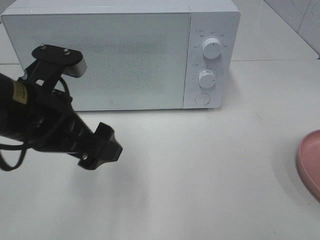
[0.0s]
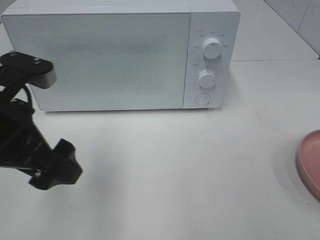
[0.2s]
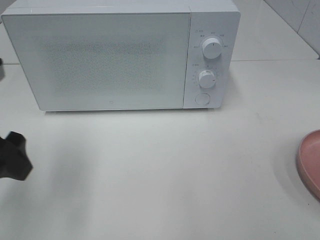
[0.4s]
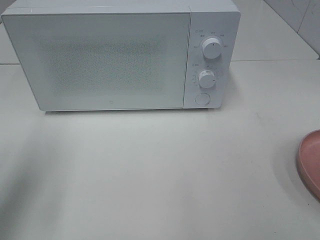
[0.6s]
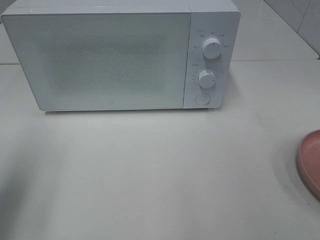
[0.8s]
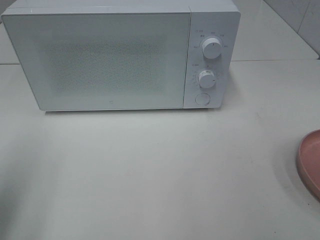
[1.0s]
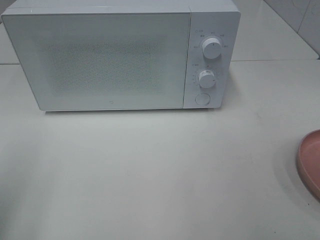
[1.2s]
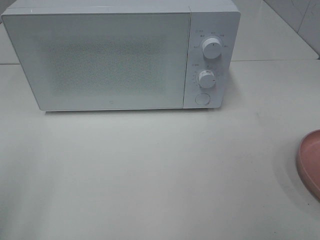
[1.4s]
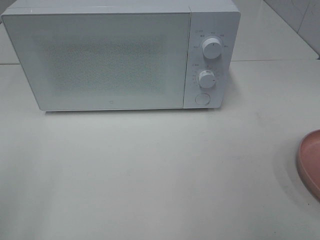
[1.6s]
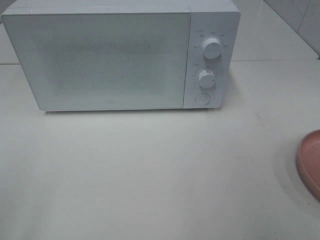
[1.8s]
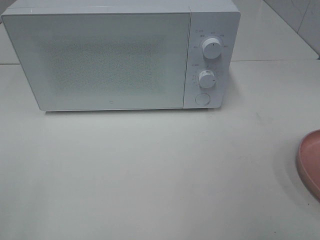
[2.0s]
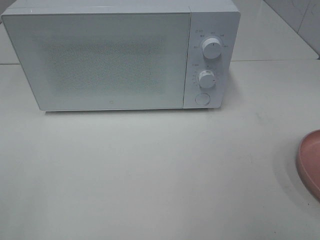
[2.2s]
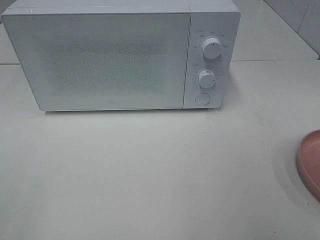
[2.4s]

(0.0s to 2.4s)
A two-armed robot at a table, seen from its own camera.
Task of the whole recording: Heat the burger.
0.0s - 1.2s: The left gripper shifts roughly 20 cm to the left and backward.

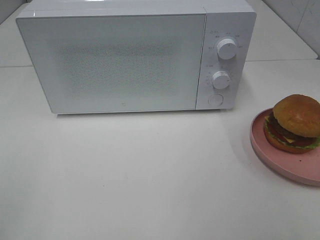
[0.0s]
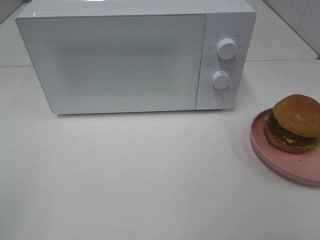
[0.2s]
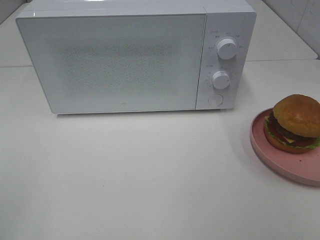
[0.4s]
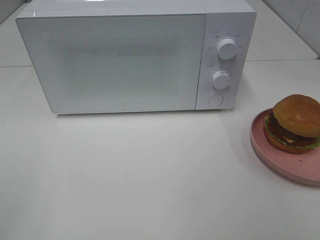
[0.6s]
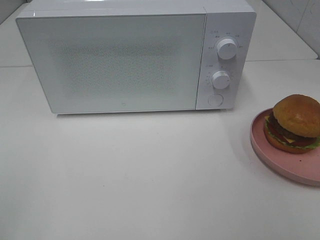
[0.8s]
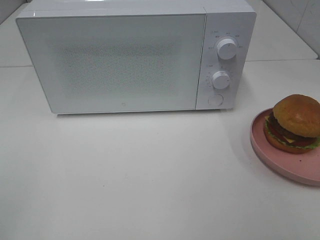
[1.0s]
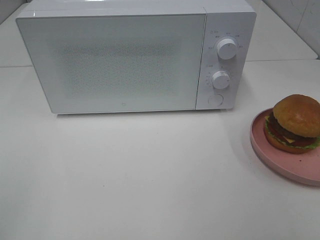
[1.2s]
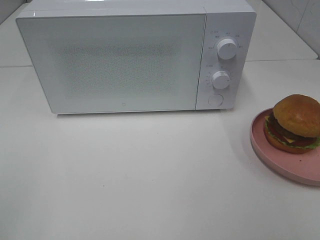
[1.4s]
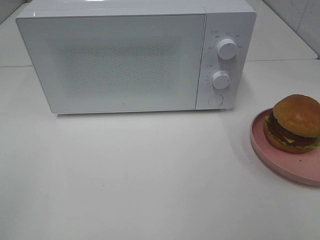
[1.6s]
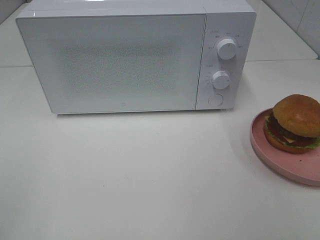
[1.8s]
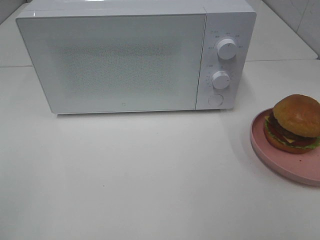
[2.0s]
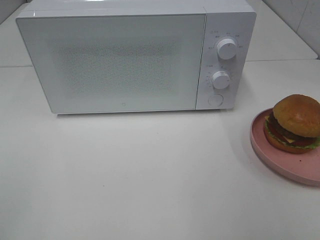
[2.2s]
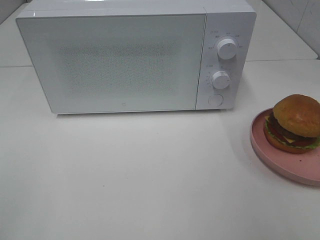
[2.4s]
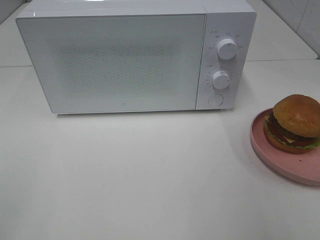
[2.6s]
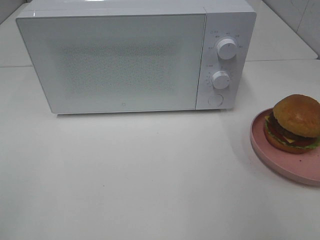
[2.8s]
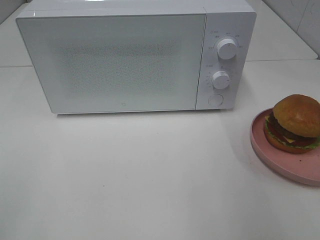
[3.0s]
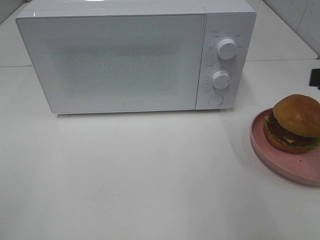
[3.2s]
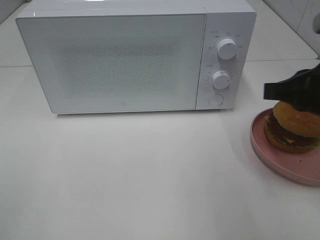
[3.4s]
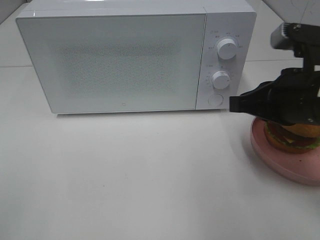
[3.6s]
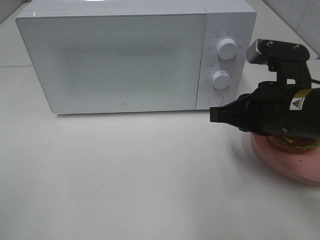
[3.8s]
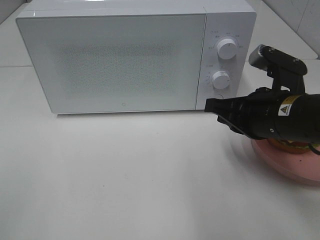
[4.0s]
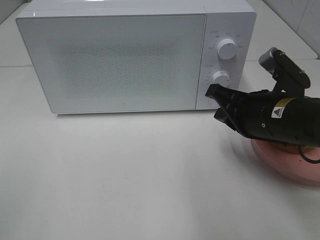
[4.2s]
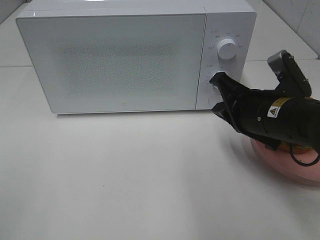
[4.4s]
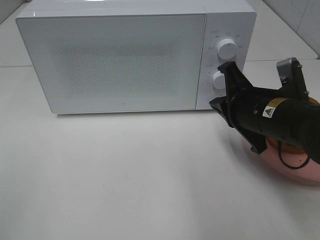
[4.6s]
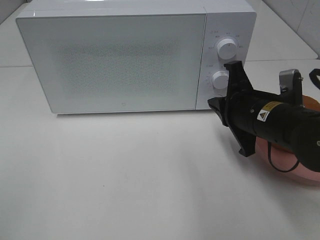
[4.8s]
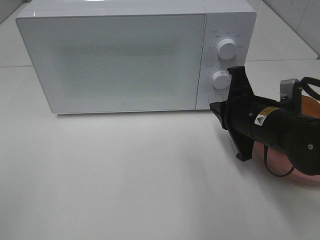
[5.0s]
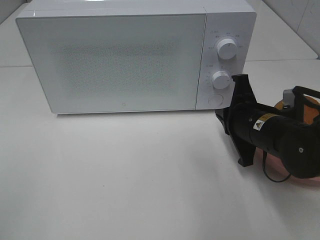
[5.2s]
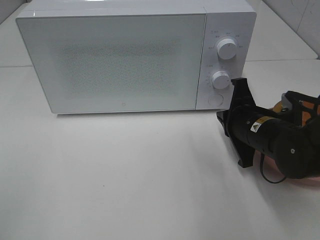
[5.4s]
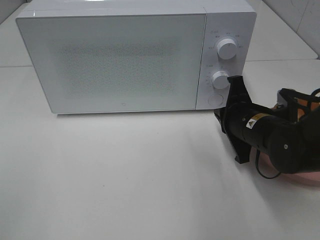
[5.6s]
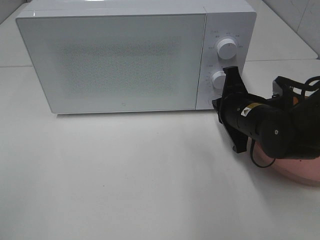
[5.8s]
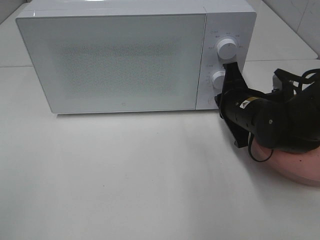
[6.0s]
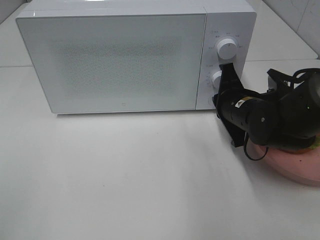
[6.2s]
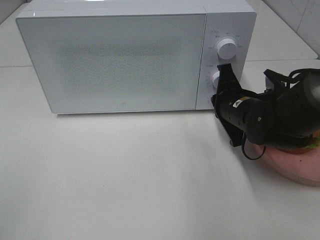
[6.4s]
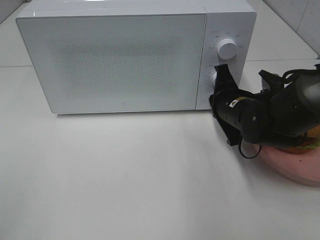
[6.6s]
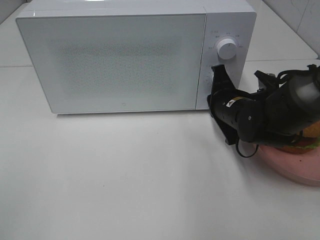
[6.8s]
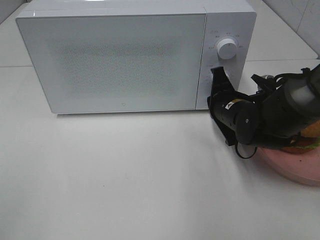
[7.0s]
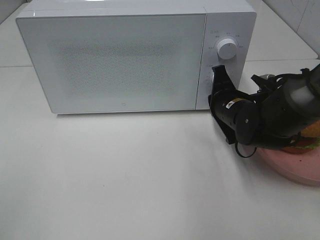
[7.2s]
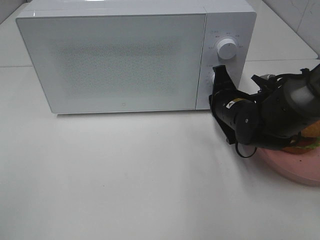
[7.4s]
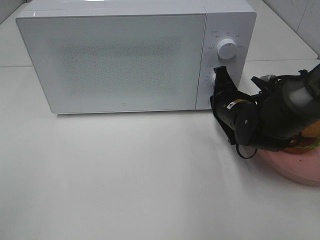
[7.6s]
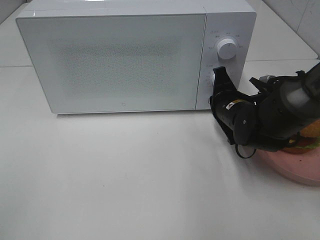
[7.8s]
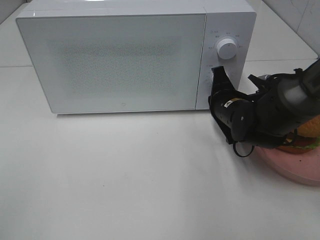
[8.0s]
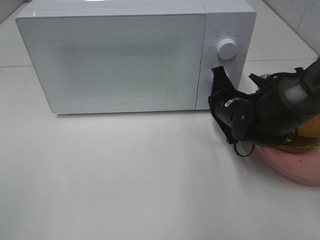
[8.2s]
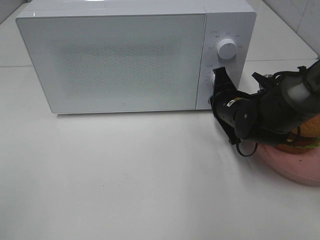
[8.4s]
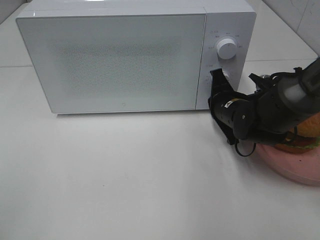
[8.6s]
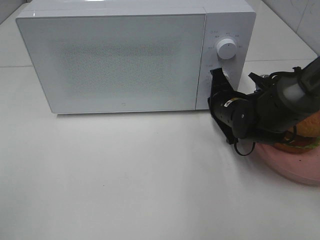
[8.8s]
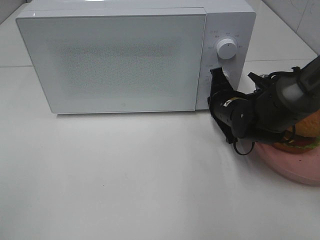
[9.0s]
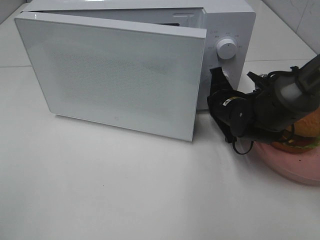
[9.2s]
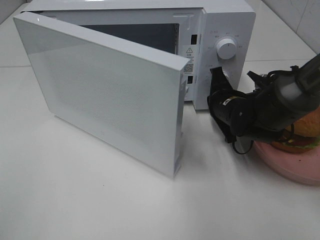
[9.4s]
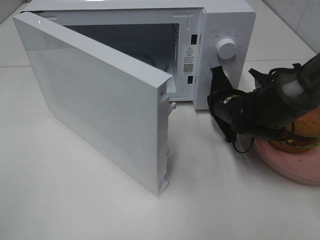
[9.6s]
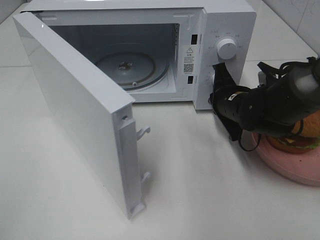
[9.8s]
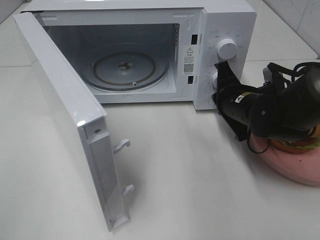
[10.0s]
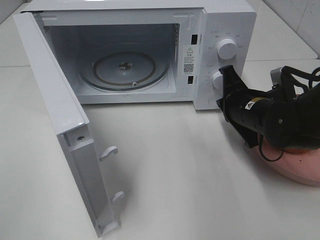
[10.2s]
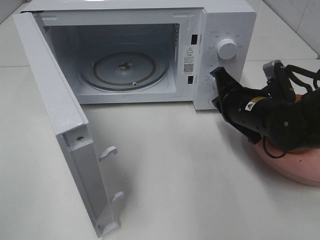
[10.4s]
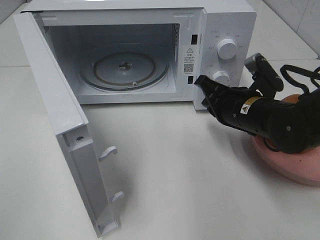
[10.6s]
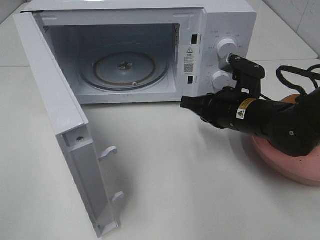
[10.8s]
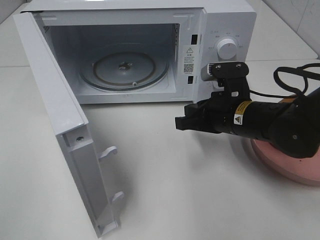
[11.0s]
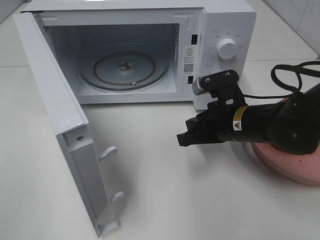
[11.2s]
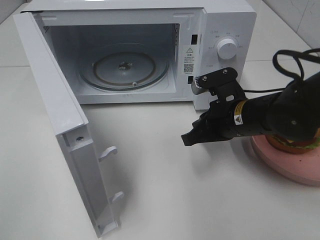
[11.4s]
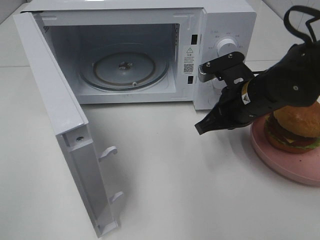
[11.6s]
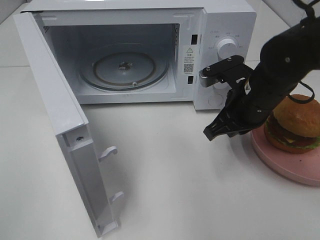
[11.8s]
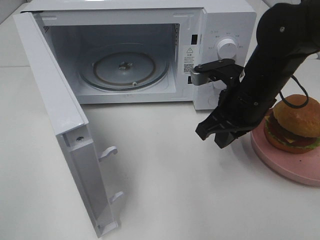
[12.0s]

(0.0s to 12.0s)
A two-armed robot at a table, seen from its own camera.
Task of the whole recording: Heat the burger.
Step, 0.0s - 10.0s: Right hand: press the switch.
0.0s - 1.6s: Neither gripper changes place.
3.0s - 4.4s: The right gripper is displaced to the left, downward and forward by approximately 20 cm.
4.4s - 6.0s: The right gripper shifts approximately 5 cm forward.
6.0s - 9.0s: There are only small adjustments of the grippers.
9.0s - 10.4s: The right gripper is displaced backward by approximately 5 cm.
10.4s - 12.0s: The right gripper heads upward, covering some 5 cm.

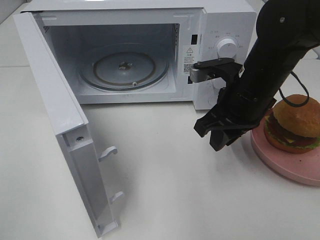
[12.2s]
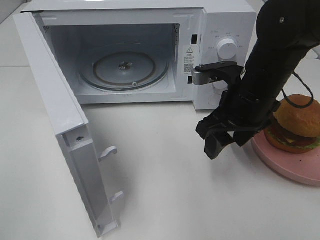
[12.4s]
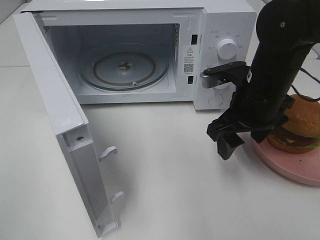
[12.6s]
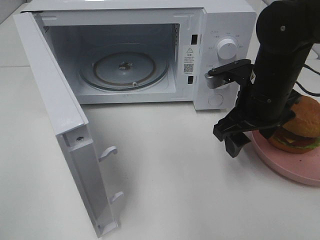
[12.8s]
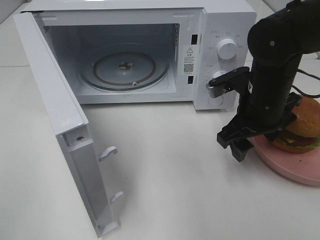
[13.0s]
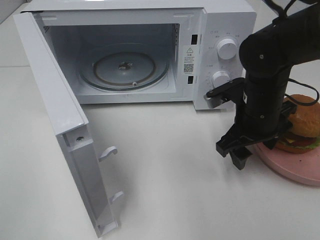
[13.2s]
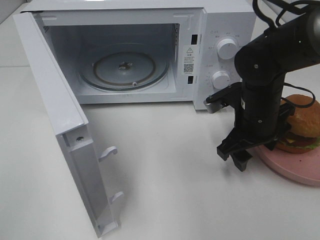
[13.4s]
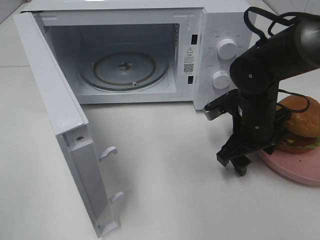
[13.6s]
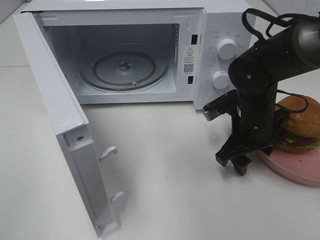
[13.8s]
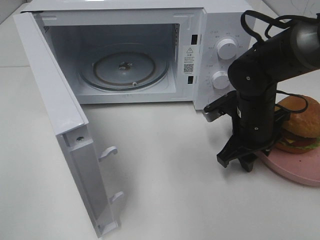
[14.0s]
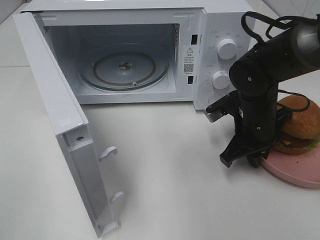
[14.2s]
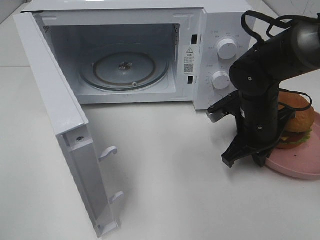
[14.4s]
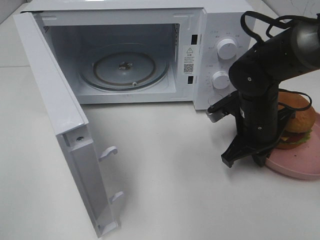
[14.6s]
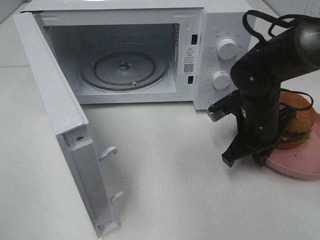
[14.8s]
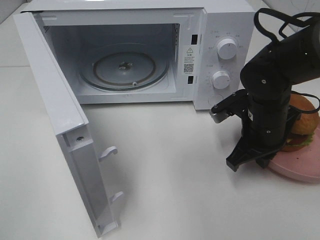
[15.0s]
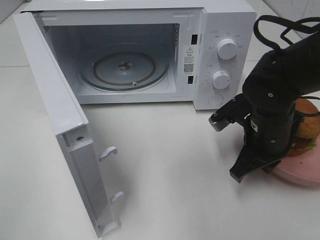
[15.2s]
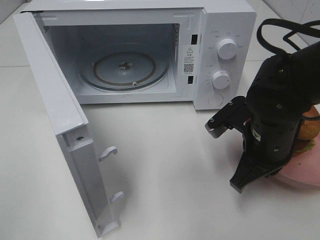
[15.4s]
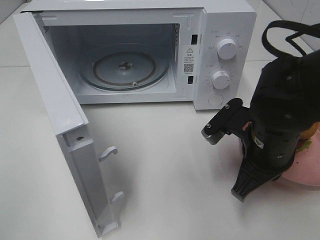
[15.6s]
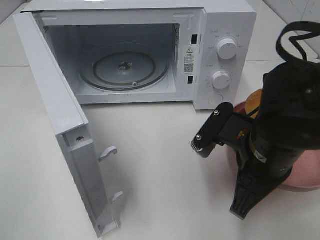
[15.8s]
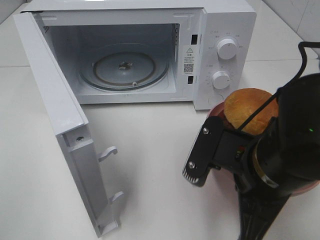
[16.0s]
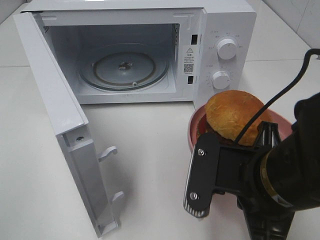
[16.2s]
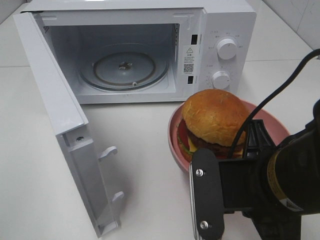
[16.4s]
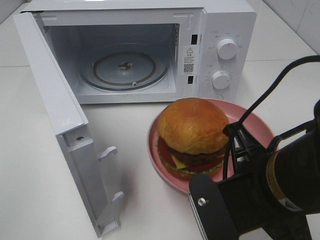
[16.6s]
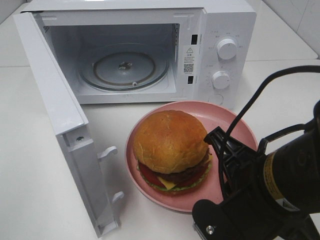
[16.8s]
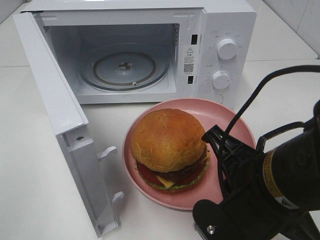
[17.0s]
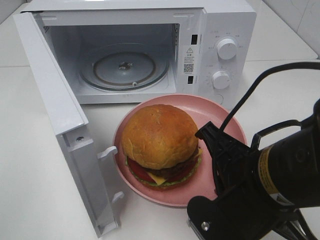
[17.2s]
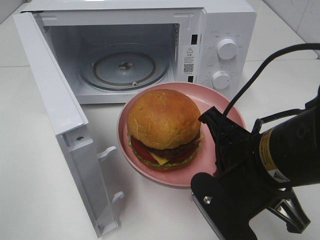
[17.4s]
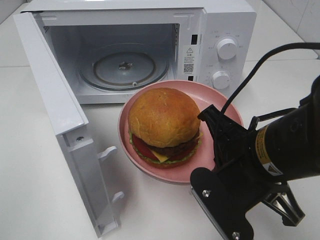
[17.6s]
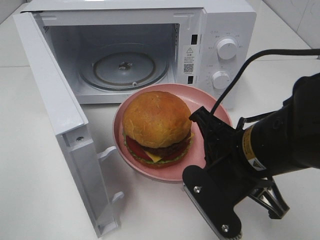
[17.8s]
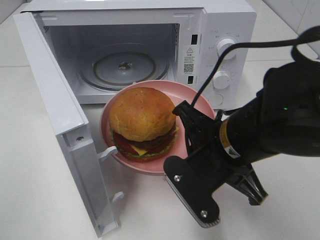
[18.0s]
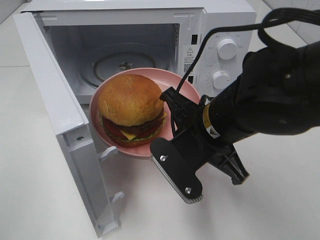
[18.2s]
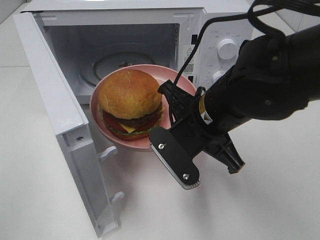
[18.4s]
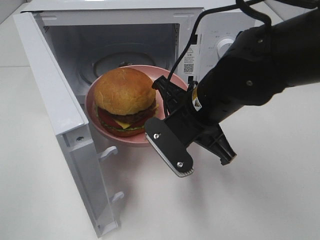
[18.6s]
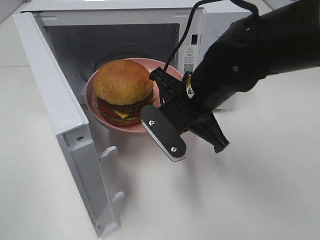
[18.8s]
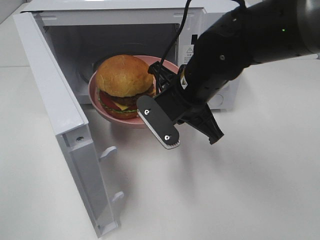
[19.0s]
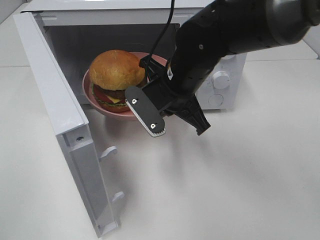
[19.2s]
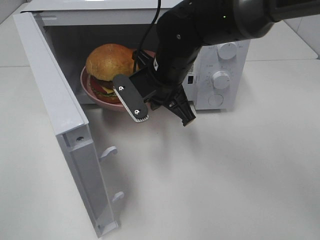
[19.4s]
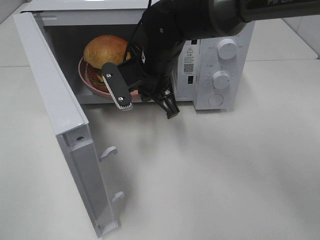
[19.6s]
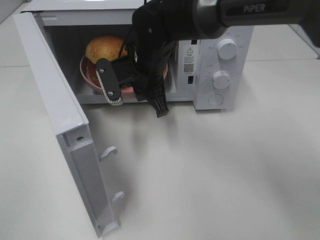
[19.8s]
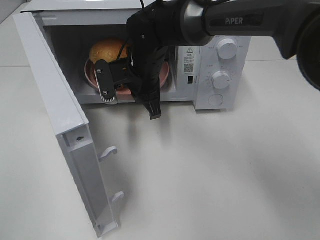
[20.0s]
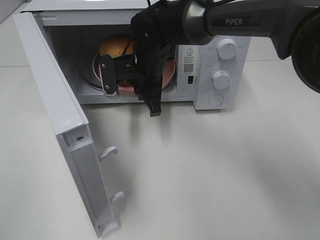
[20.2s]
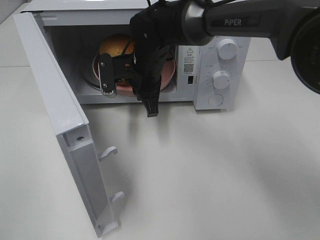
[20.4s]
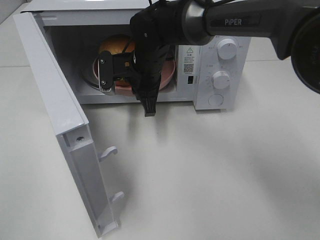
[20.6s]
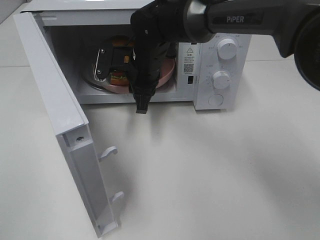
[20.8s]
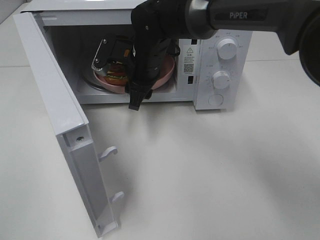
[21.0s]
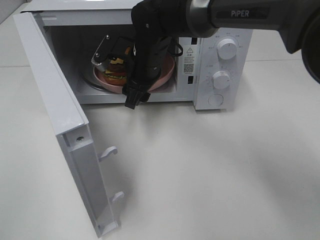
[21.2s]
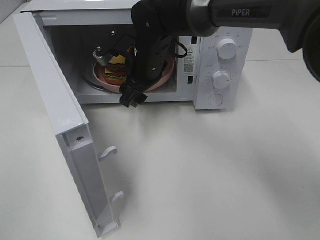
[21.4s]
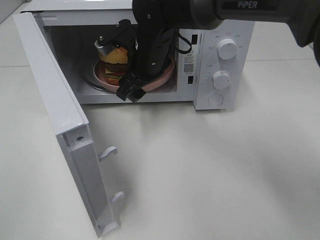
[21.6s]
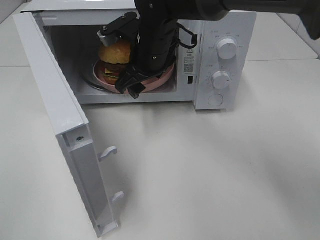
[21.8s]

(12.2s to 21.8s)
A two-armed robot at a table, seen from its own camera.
Task of the whole recording: Heat the burger.
Step, 12.2s - 14.4s: Right hand: grab the plate with the hamburger.
Step, 14.6s - 20.8s: Right hand: place the plate in the microwave.
12.2s - 13.8s: The right gripper travels downward by about 10 cm, and opens.
13.8s - 15.4s: The right gripper goes about 5 cm backward, and closes.
15.4s - 17.0s: The right gripper travels backward and upward by roughly 15 cm.
17.0s - 18.6s: The right gripper shifts roughly 15 cm forward.
18.6s - 20.2s: The right gripper goes roughly 15 cm forward and to the left.
20.2s - 21.8s: The right gripper opens up.
